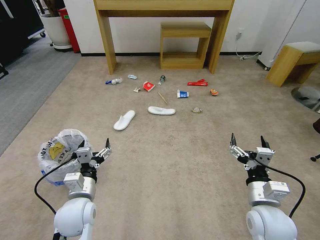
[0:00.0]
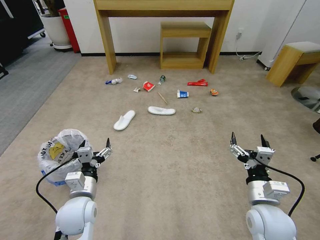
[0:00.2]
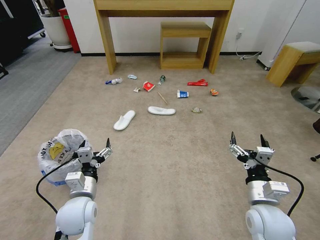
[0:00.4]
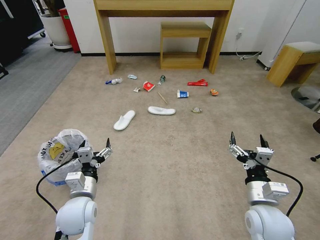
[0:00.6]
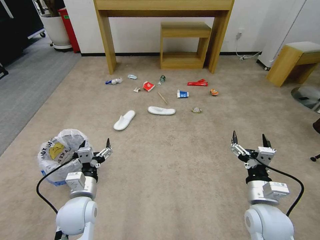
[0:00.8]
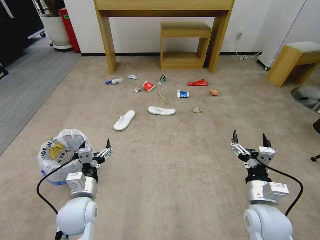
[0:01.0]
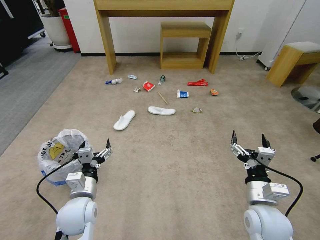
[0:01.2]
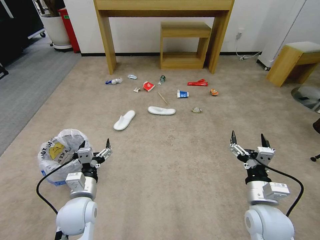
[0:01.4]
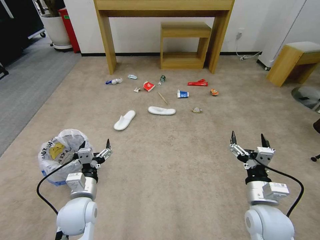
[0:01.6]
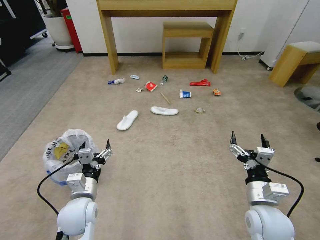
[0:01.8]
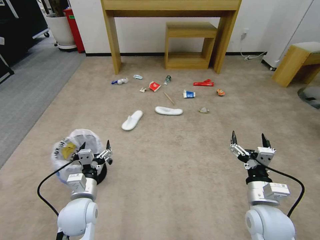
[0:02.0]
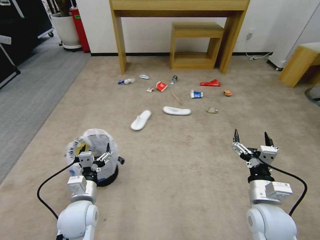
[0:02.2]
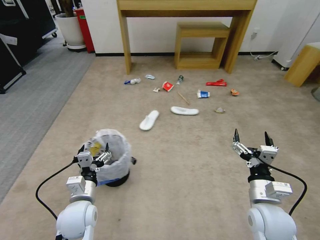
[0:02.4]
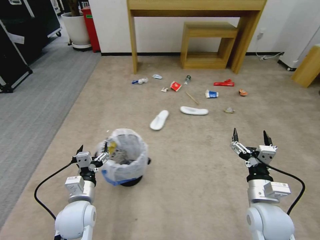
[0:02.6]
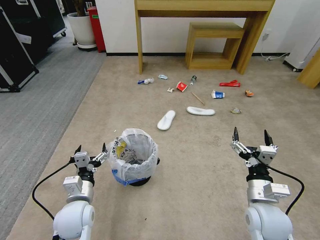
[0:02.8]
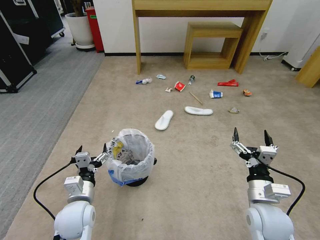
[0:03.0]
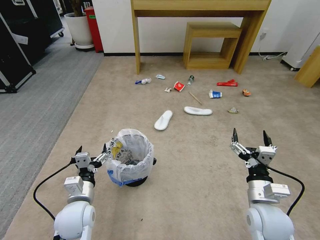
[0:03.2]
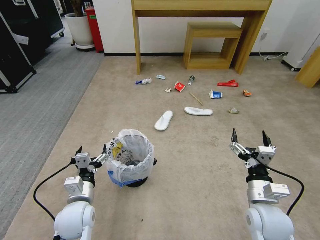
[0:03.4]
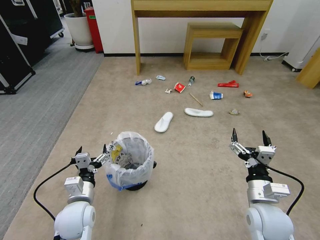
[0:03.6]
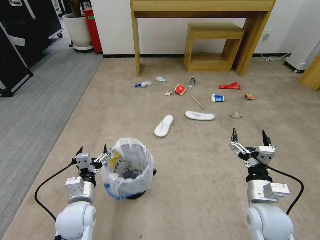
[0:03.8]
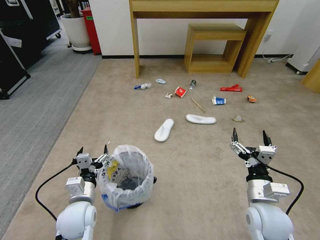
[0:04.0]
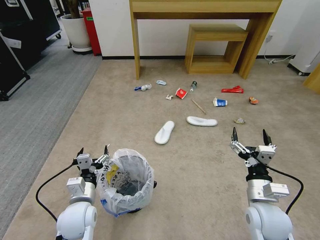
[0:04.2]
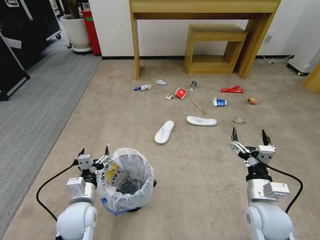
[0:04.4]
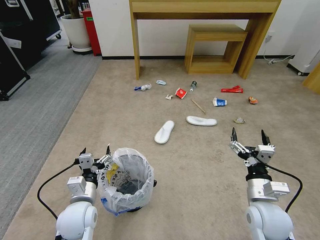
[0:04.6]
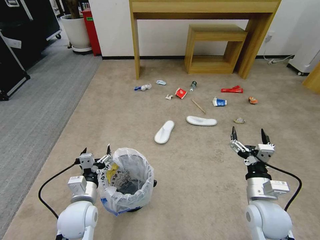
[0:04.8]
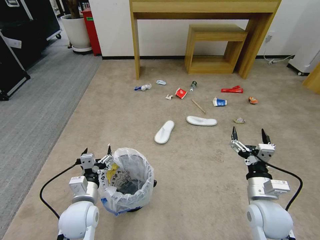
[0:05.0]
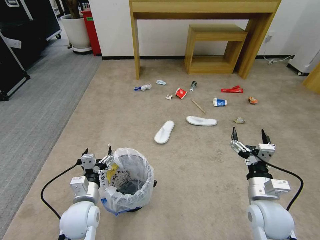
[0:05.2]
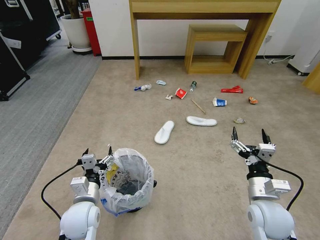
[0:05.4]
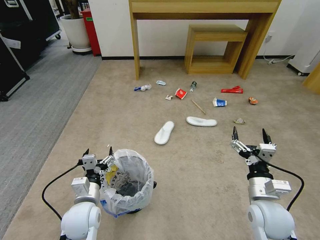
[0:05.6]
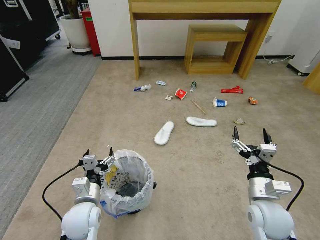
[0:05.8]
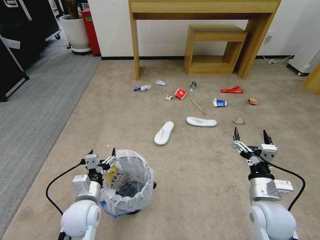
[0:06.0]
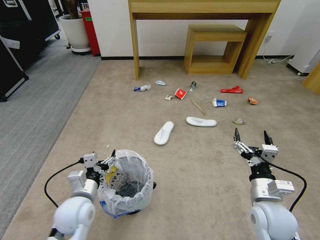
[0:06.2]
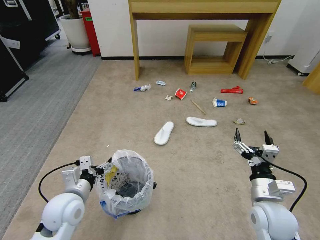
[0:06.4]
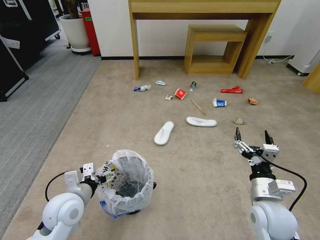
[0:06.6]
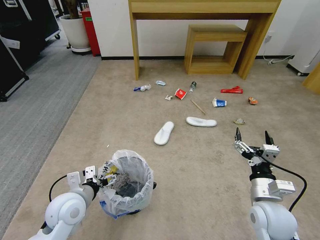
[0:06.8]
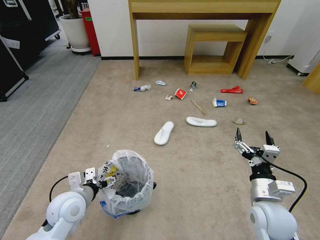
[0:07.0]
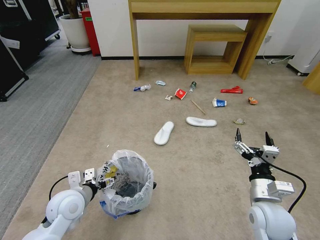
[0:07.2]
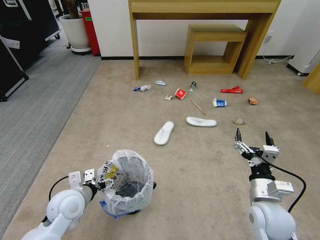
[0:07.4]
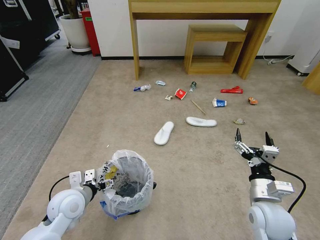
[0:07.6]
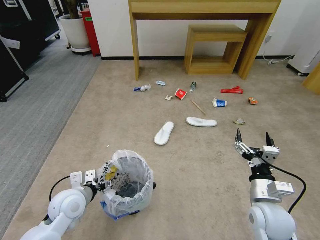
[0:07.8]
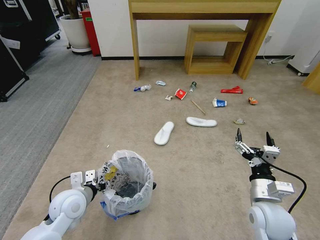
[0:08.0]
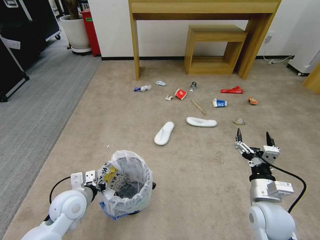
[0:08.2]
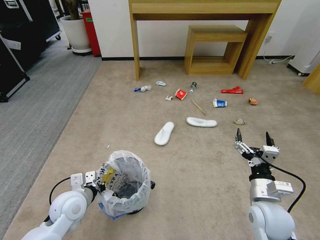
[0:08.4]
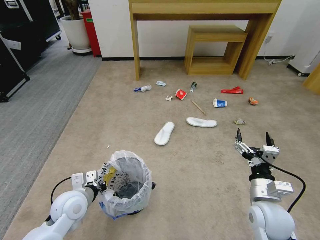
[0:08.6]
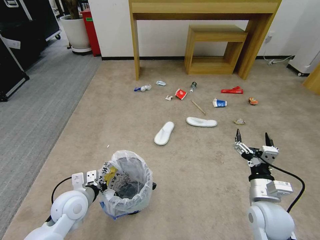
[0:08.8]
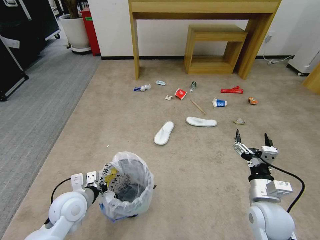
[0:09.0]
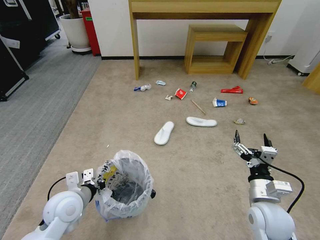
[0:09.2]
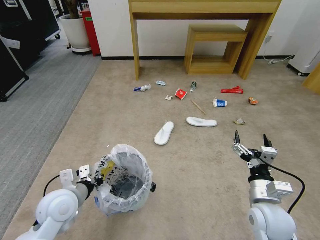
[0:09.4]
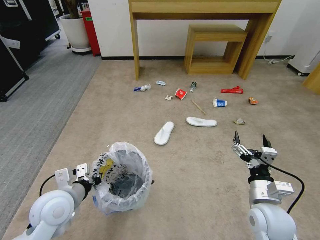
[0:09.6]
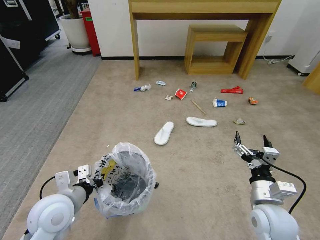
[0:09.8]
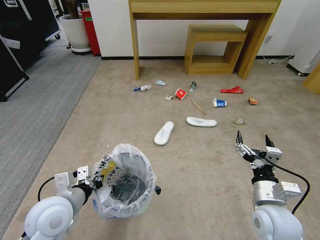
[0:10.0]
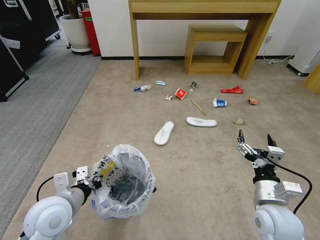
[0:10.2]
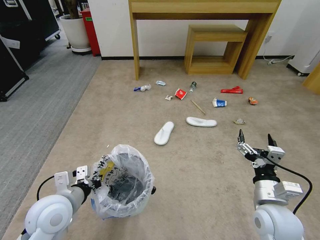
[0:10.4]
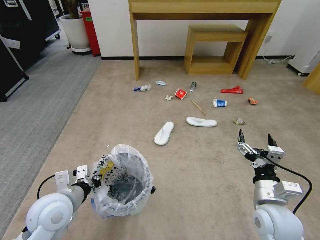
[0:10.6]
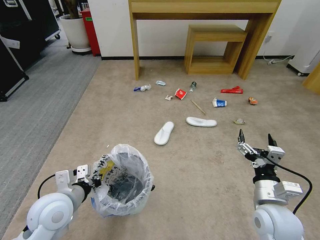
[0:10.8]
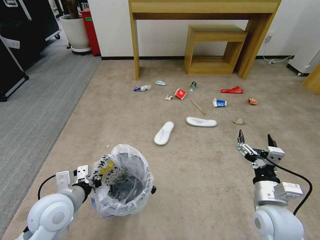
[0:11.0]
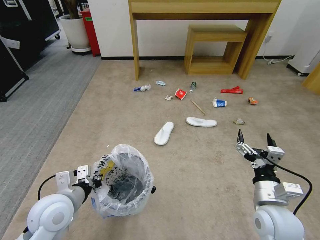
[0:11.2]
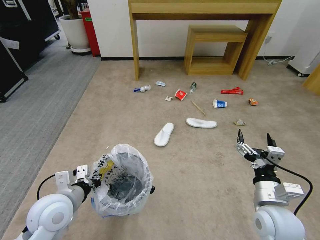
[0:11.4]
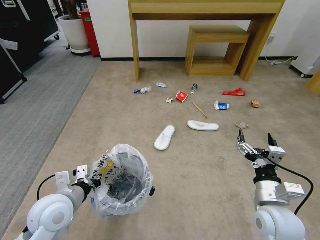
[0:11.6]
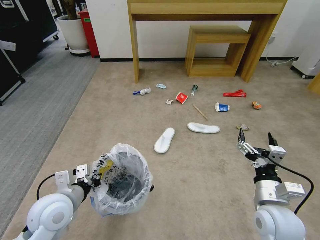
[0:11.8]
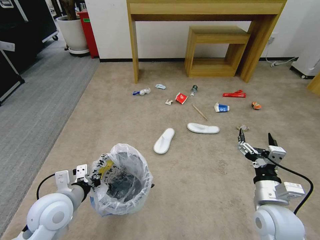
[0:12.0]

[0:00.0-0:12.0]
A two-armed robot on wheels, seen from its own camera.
Task of the whole recording: Pick up the trash bin and place the garbage on the floor into it.
0:03.0 to 0:04.4: Both grippers stay put.
0:04.4 to 0:06.0: The grippers make only small movements.
0:06.0 to 0:07.6: The left gripper goes about 5 cm to the left.
0:07.6 to 0:09.0: The left gripper closes.
0:09.0 to 0:10.4: The left gripper heads upward, covering roughly 5 cm.
0:10.4 to 0:12.0: The two grippers keep their place.

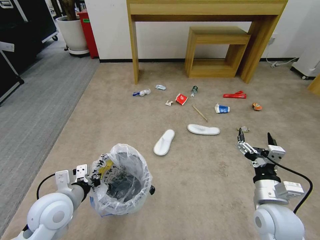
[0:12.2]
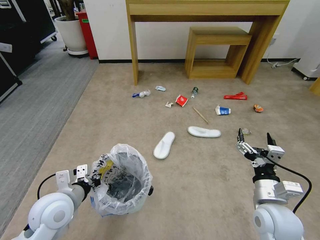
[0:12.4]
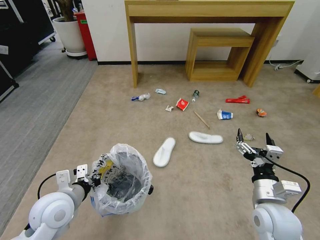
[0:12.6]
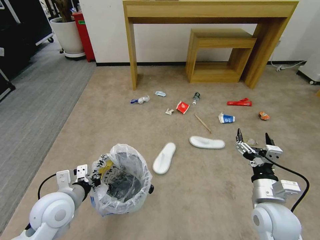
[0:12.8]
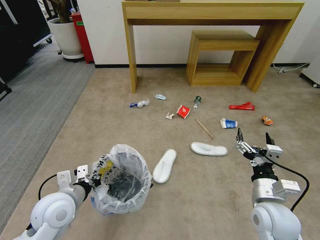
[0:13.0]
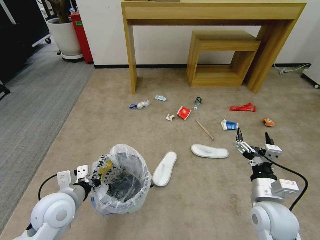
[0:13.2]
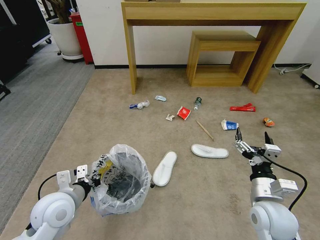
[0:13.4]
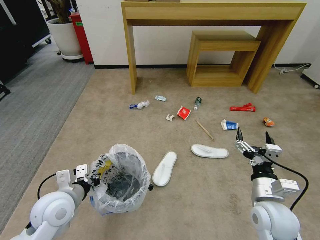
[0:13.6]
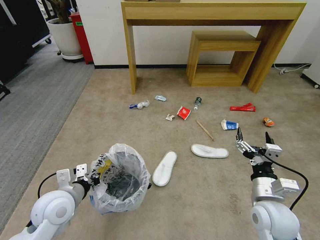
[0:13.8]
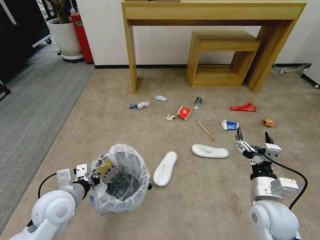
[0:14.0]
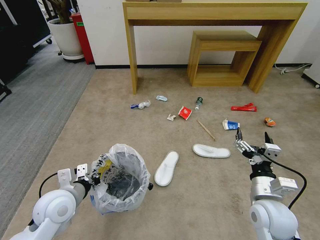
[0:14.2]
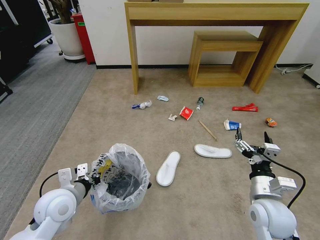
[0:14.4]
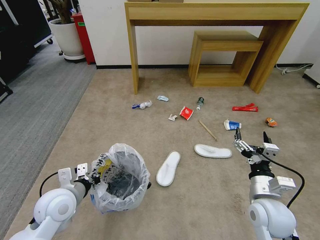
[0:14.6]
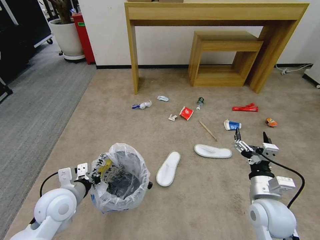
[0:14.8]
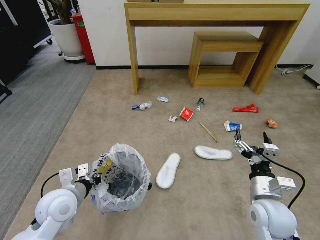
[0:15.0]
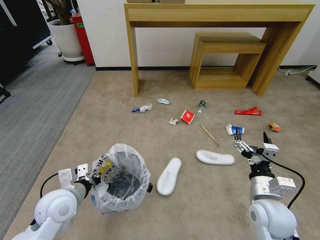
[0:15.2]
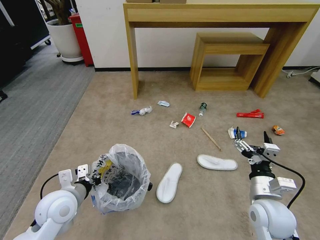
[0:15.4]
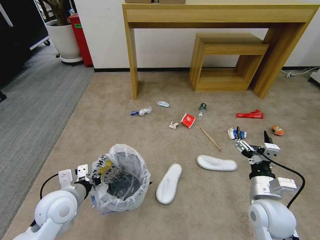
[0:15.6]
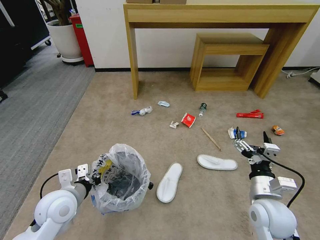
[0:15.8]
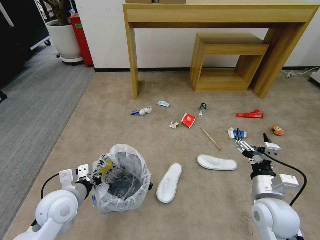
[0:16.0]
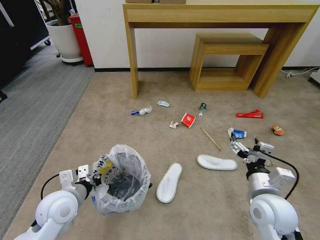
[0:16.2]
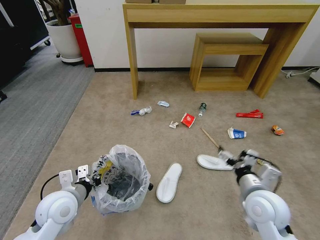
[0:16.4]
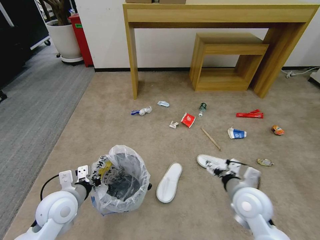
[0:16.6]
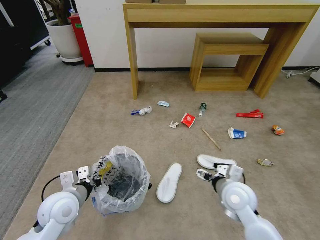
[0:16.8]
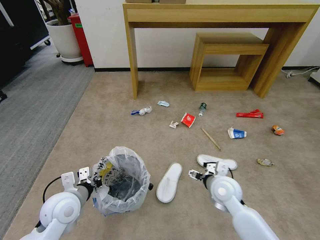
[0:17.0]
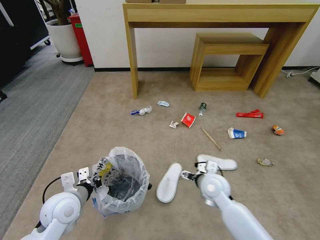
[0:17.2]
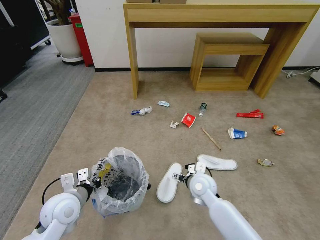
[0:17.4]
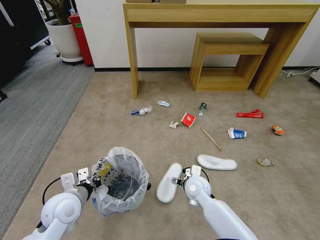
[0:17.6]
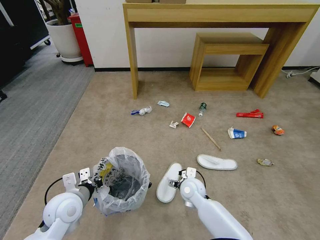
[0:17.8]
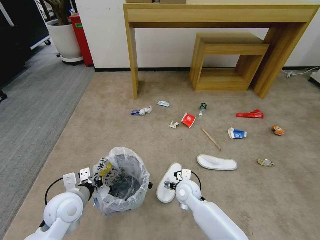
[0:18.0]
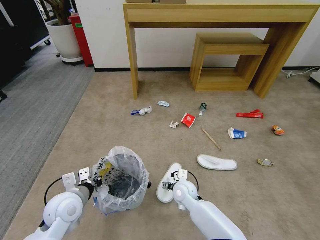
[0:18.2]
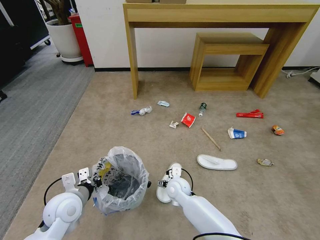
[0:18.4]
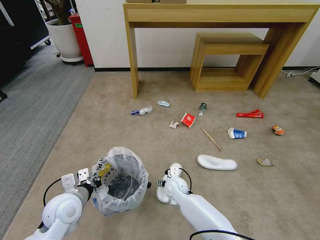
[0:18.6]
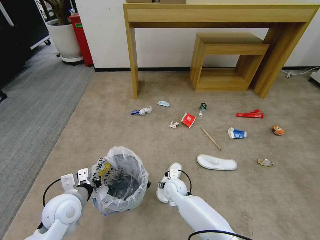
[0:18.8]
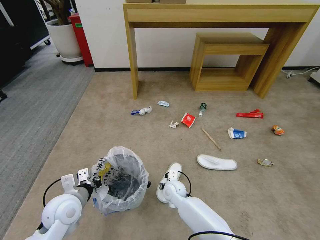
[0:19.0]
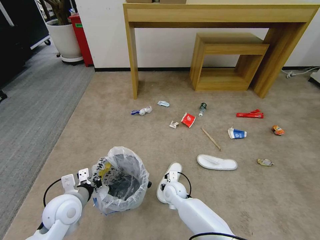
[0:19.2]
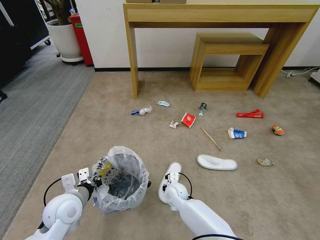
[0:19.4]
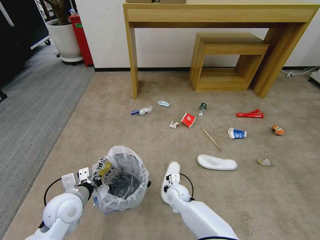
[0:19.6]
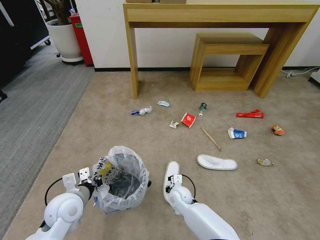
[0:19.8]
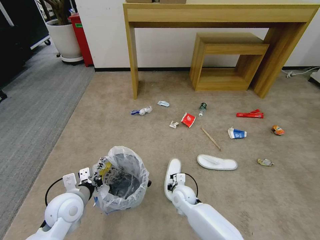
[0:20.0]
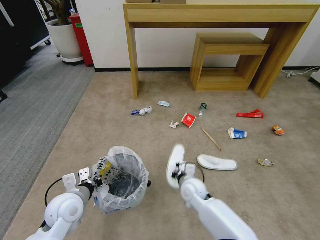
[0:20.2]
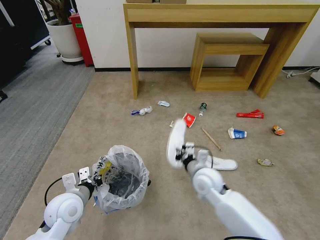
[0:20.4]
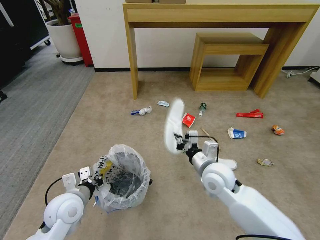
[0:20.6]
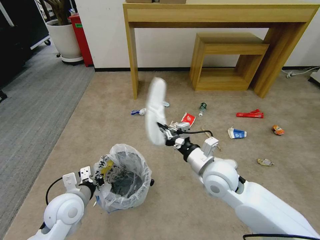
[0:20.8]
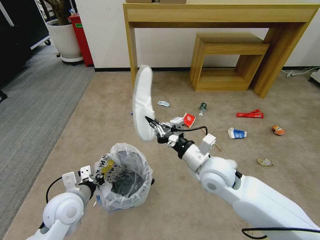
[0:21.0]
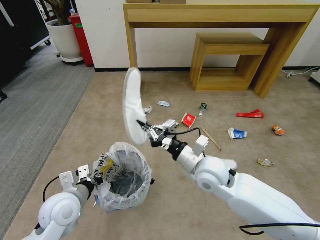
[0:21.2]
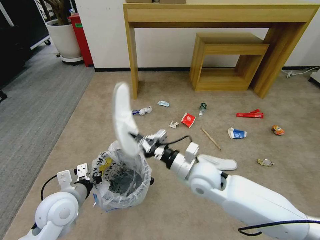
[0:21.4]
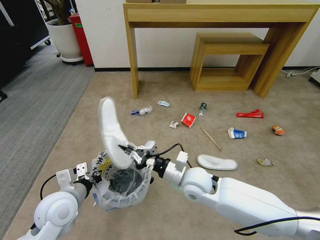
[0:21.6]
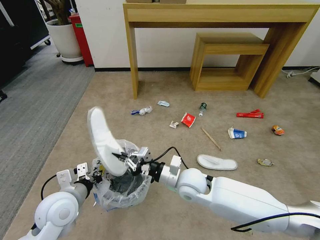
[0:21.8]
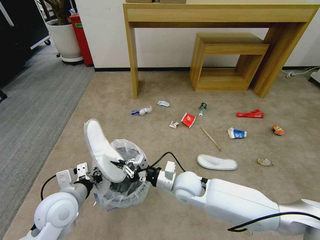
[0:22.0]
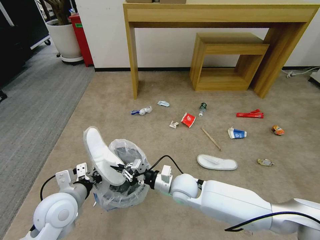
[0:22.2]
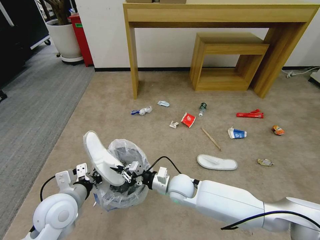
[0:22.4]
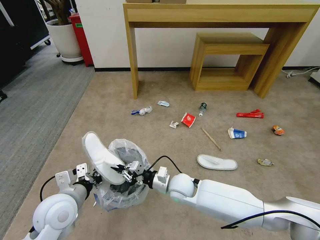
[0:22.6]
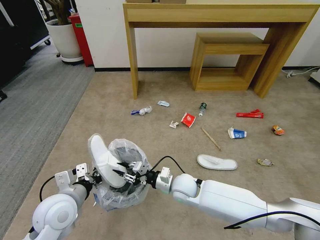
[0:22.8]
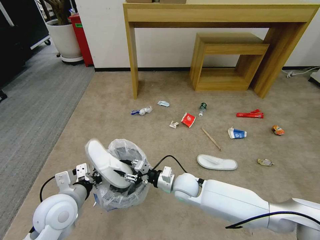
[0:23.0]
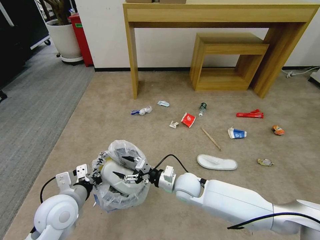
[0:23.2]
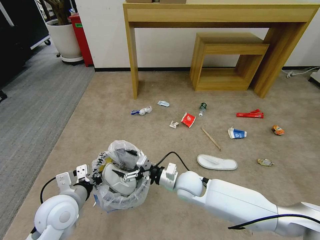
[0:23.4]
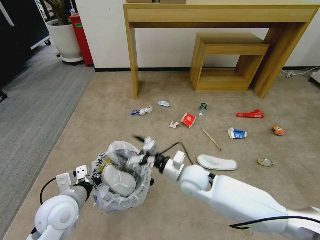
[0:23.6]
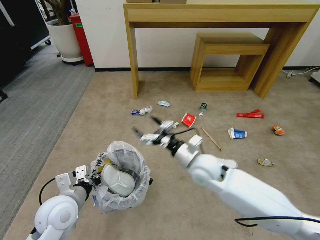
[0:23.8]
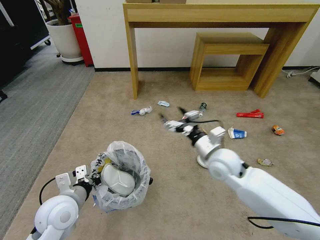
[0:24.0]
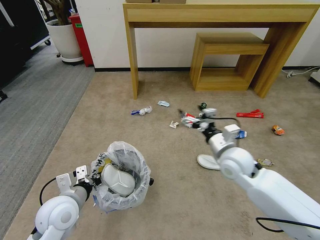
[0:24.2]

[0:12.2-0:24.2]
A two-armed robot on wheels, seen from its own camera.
Task of the whole recording: Pick up the trash bin and place the garbage on the floor into it.
0:13.8 to 0:15.2: The two grippers keep their place.
0:16.6 to 0:18.2: The right gripper heads to the left, downward and forward, covering roughly 25 cm.
0:18.2 to 0:19.8: The right gripper shifts roughly 5 cm downward, and closes its fingers.
0:19.8 to 0:21.2: The right gripper is displaced upward by roughly 25 cm.
0:21.2 to 0:22.6: The right gripper moves downward and to the left, some 15 cm.
0:22.6 to 0:24.2: The right gripper travels to the right and upward by roughly 20 cm, and opens its fingers.
